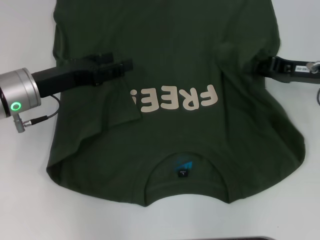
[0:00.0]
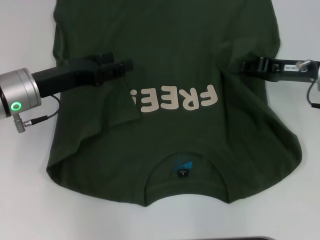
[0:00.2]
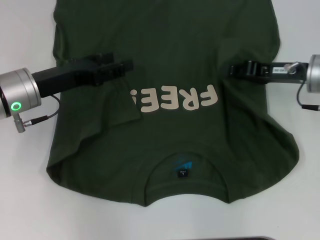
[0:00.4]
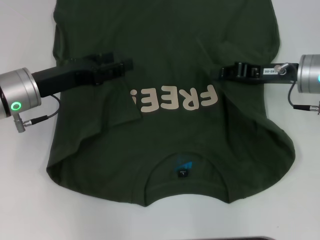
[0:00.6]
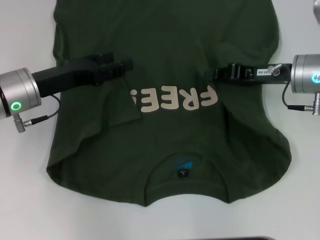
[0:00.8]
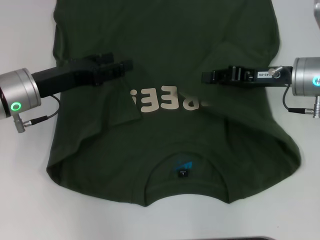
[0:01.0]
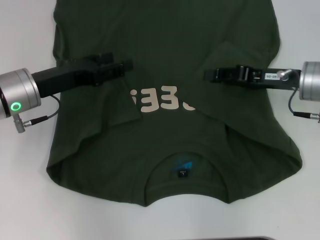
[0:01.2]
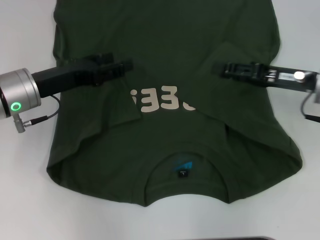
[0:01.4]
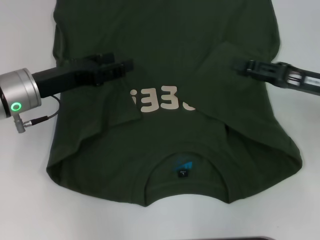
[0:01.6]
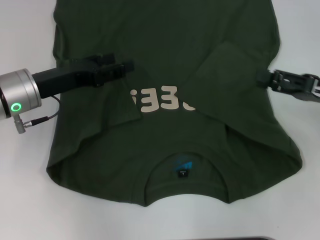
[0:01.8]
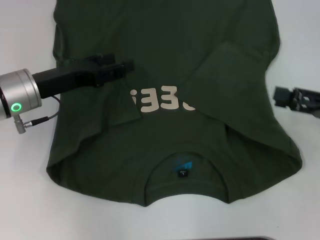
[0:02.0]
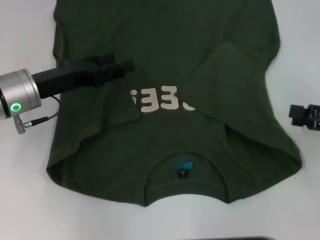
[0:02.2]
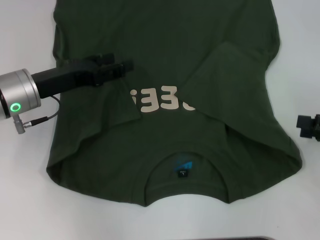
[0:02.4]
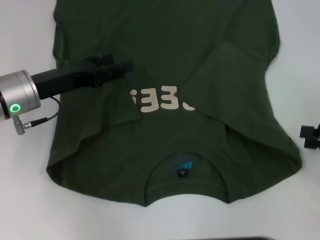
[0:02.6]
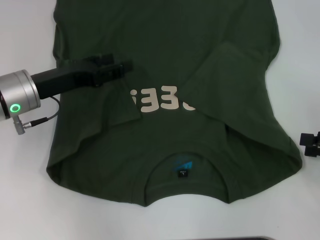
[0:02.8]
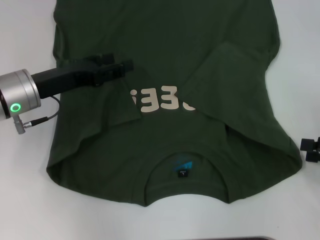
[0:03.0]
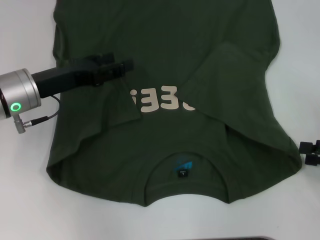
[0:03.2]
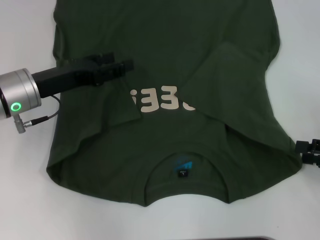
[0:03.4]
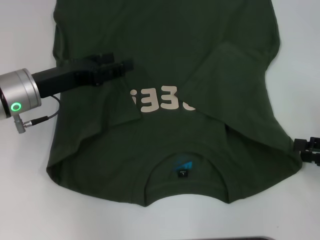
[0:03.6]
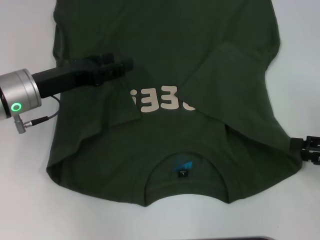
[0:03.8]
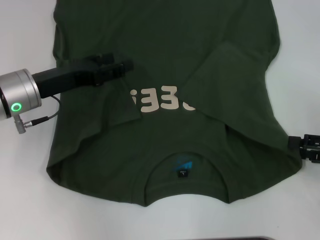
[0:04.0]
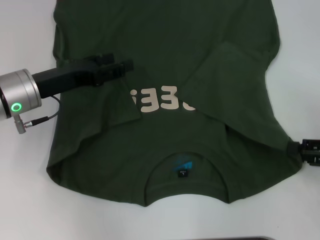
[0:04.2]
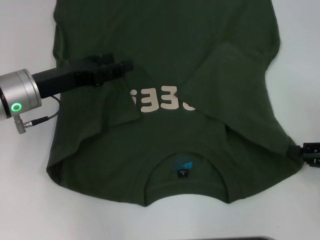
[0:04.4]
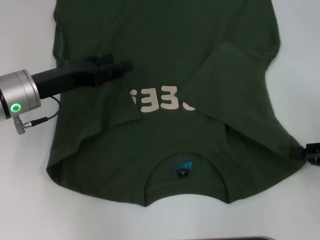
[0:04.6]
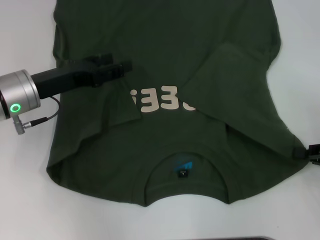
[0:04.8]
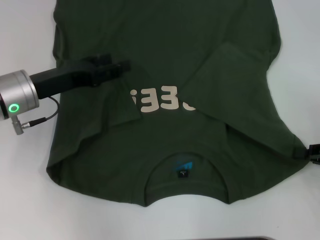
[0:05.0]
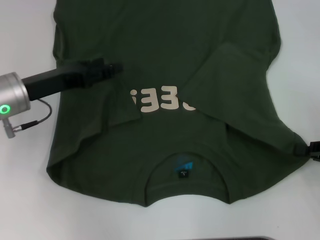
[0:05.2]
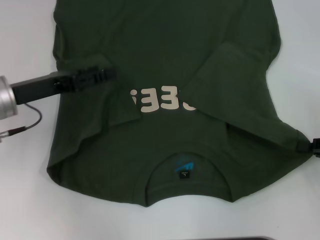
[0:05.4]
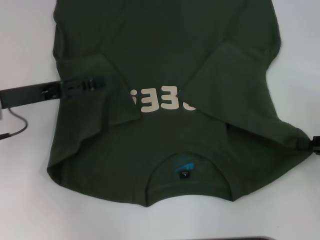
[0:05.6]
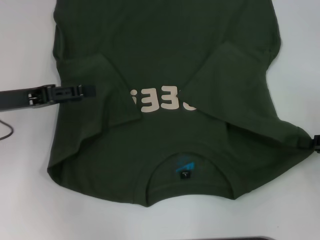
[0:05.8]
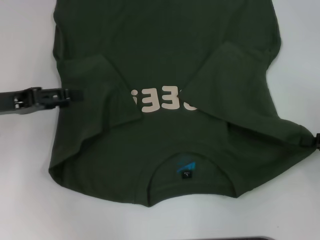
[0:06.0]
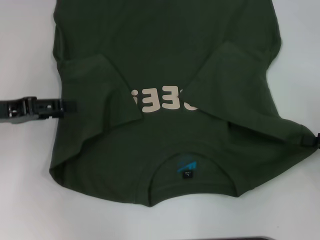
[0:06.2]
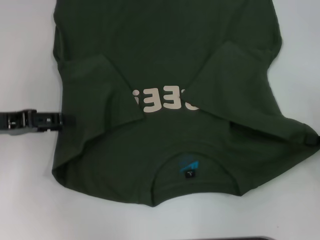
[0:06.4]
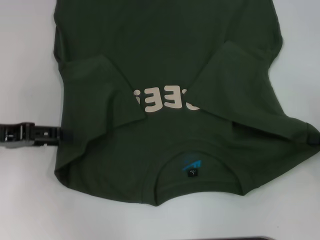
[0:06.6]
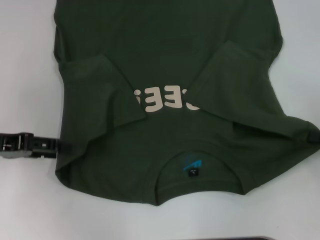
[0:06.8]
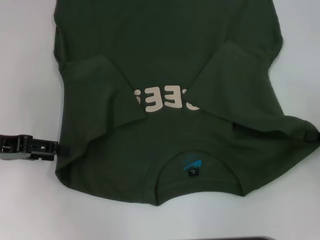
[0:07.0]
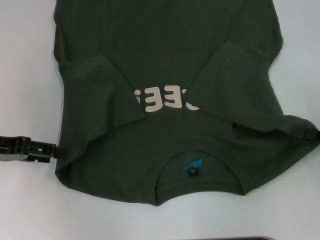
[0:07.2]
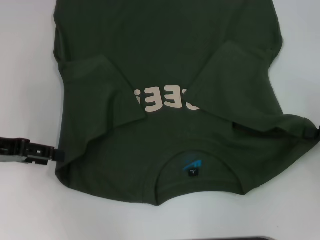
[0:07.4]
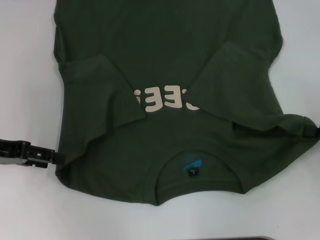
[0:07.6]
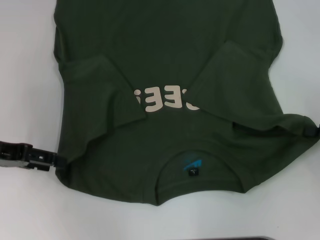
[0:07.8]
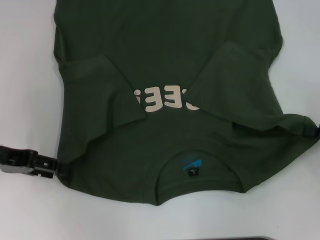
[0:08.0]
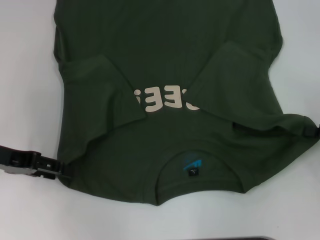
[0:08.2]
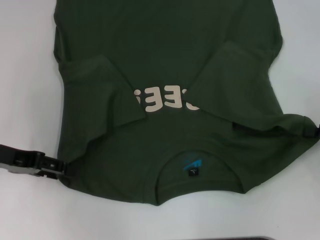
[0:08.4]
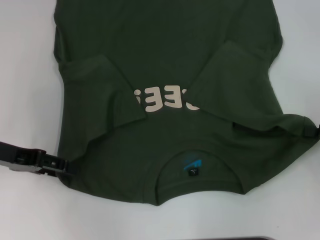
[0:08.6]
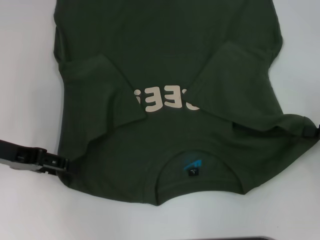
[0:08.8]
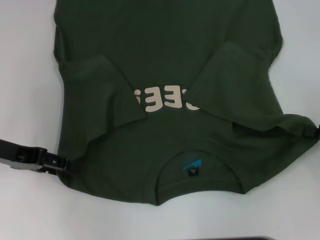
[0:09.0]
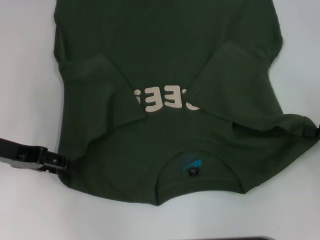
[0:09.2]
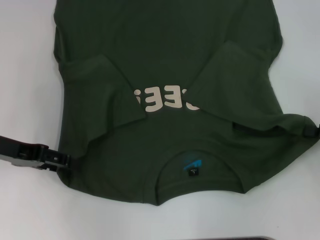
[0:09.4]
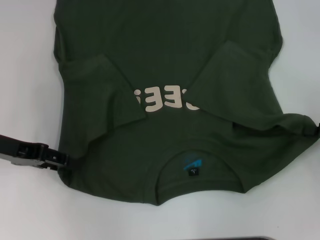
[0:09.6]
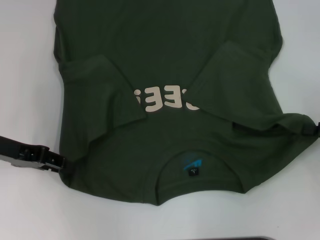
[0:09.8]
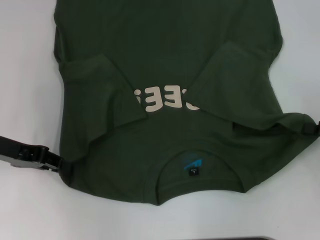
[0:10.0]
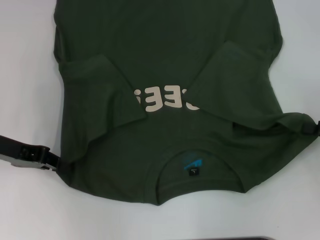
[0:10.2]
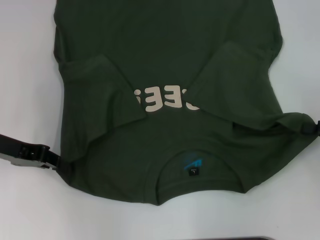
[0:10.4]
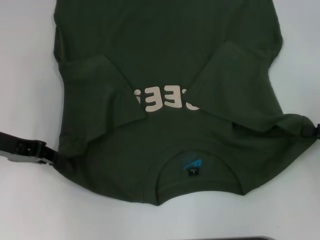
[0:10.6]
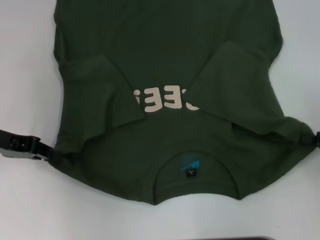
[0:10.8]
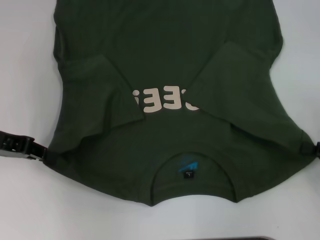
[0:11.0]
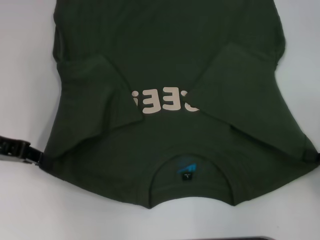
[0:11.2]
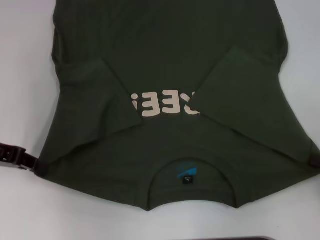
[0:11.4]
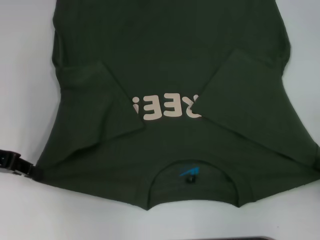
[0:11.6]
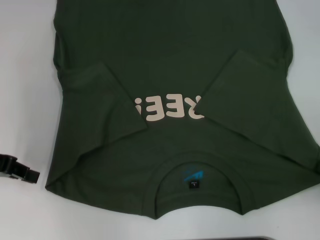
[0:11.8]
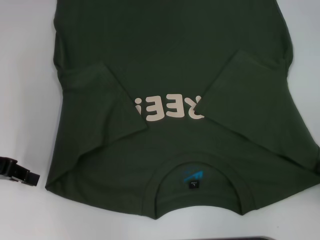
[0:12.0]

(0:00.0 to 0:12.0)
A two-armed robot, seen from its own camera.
Step, 0:01.2 - 0:05.0: Grab the bottom right corner with your right hand.
0:00.0 - 0:01.6: The right gripper opens up.
0:01.6 - 0:03.0: The right gripper heads to the right and backward, covering approximately 15 cm.
0:04.4 - 0:06.0: The left gripper shifts about 10 cm to the left. The right gripper closes up.
0:07.6 - 0:09.0: The grippers move only a little.
0:09.0 - 0:10.4: The left gripper closes.
0:10.4 - 0:12.0: The right gripper goes roughly 10 cm backward.

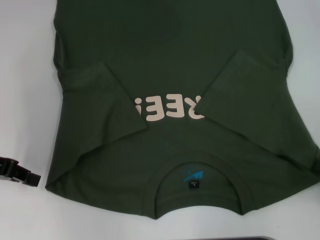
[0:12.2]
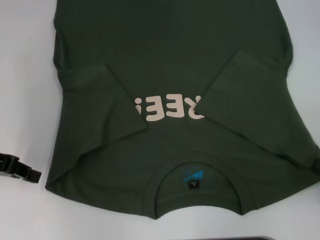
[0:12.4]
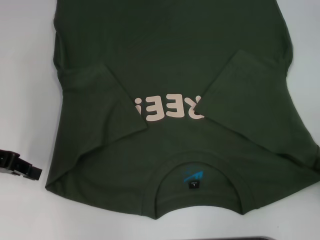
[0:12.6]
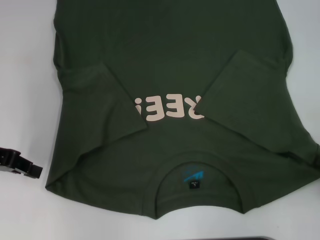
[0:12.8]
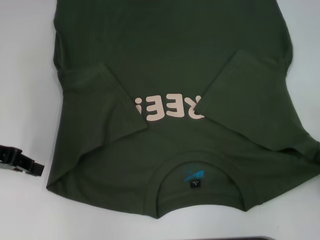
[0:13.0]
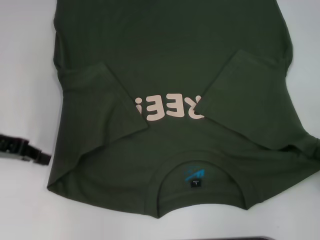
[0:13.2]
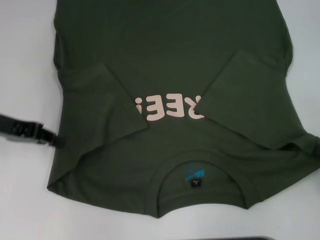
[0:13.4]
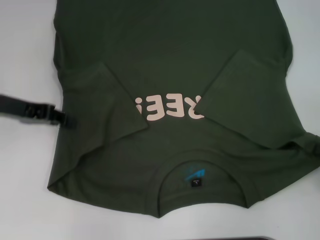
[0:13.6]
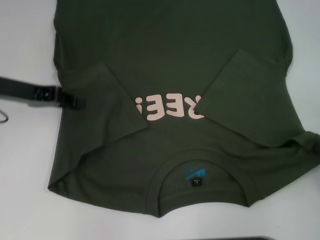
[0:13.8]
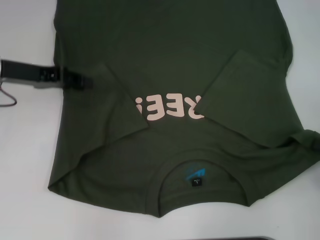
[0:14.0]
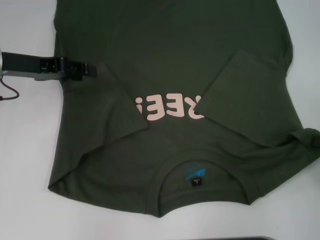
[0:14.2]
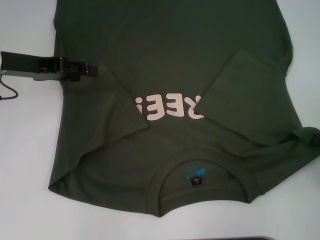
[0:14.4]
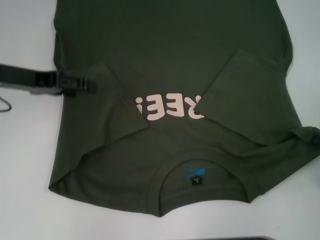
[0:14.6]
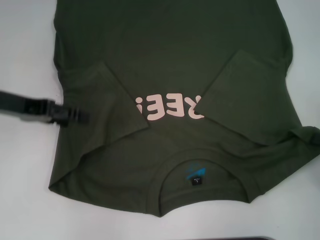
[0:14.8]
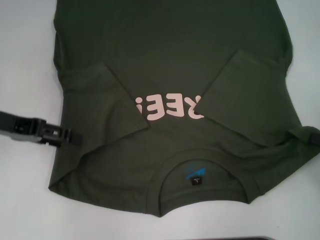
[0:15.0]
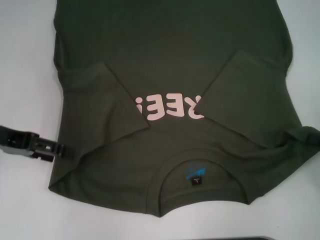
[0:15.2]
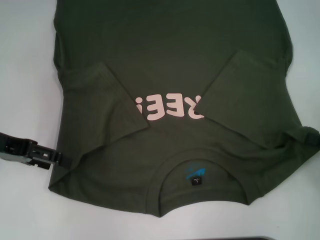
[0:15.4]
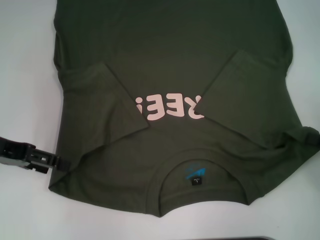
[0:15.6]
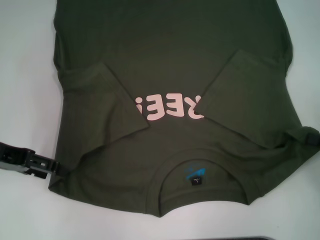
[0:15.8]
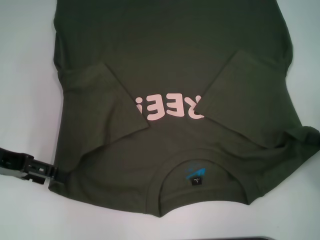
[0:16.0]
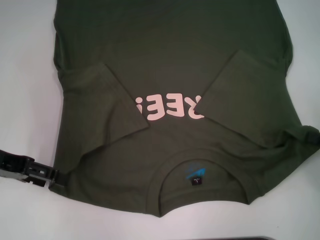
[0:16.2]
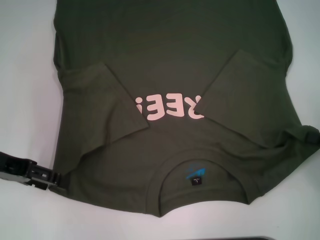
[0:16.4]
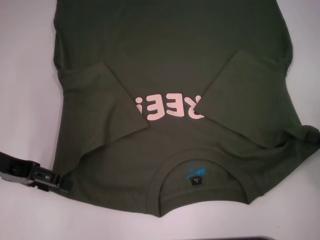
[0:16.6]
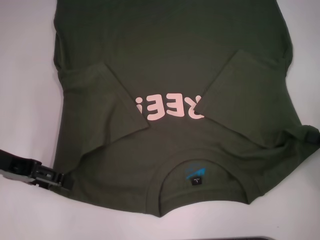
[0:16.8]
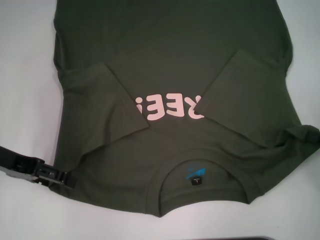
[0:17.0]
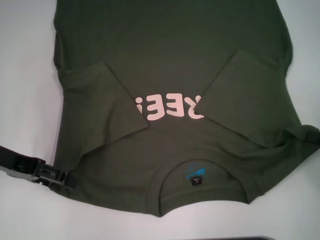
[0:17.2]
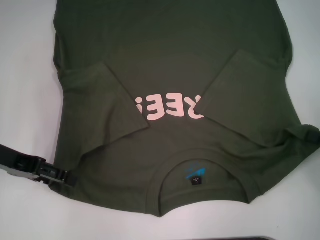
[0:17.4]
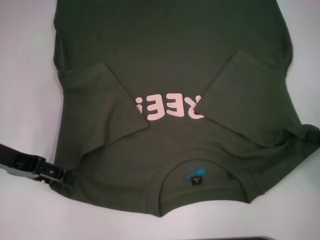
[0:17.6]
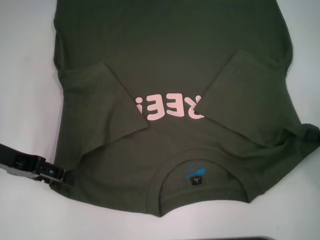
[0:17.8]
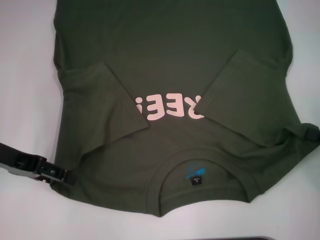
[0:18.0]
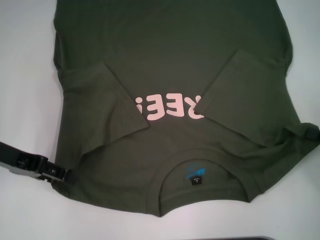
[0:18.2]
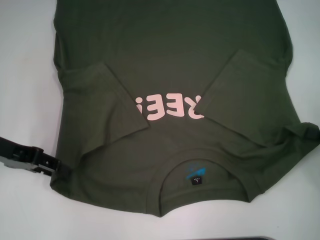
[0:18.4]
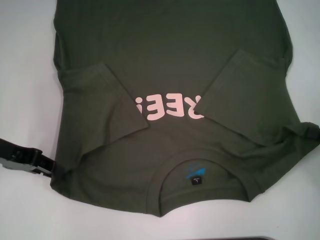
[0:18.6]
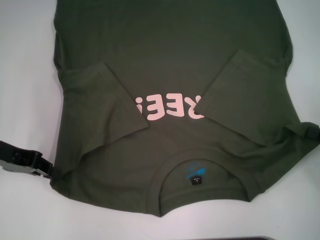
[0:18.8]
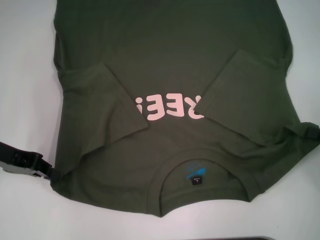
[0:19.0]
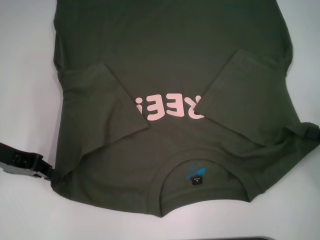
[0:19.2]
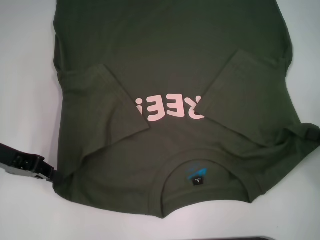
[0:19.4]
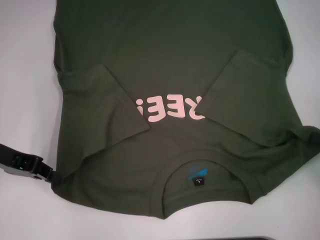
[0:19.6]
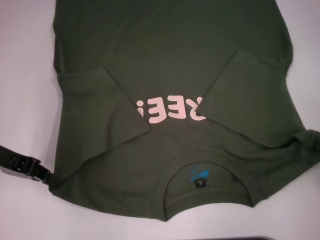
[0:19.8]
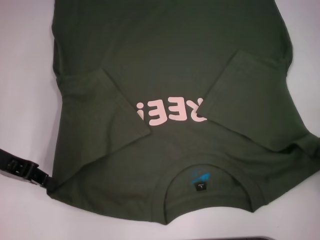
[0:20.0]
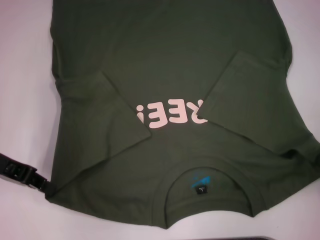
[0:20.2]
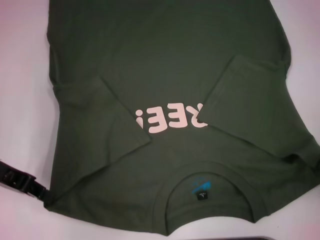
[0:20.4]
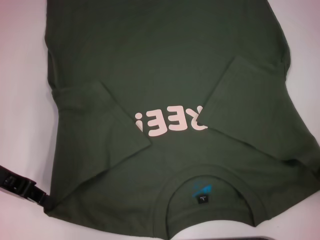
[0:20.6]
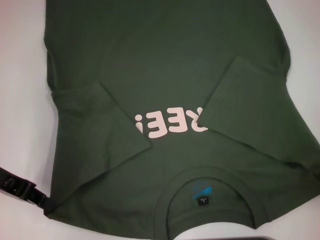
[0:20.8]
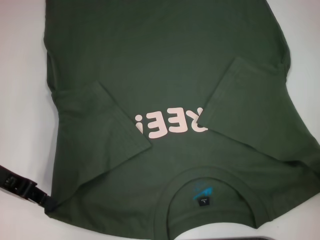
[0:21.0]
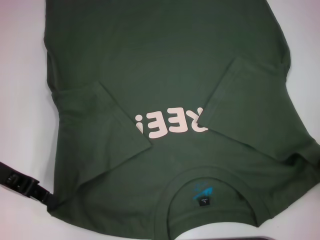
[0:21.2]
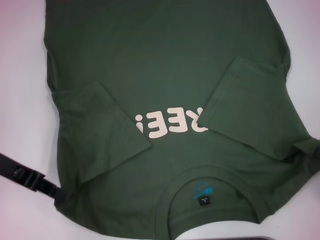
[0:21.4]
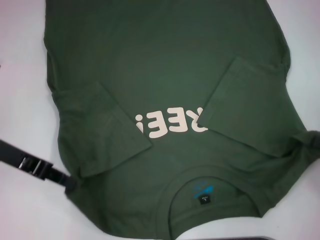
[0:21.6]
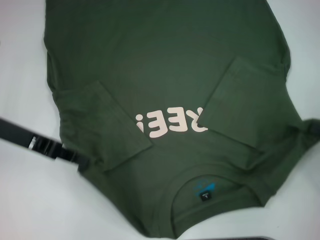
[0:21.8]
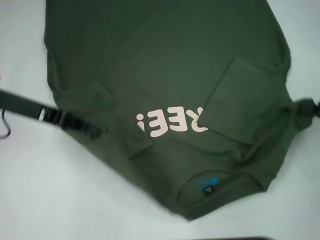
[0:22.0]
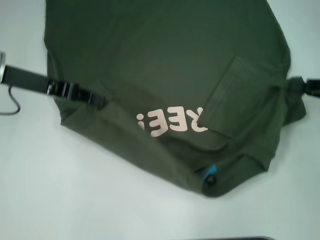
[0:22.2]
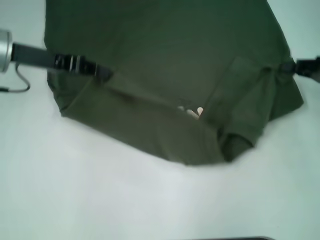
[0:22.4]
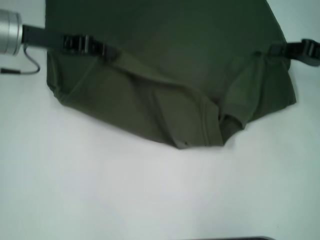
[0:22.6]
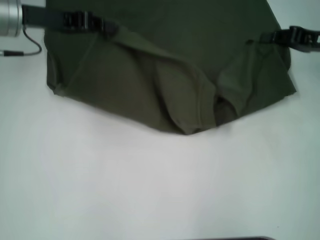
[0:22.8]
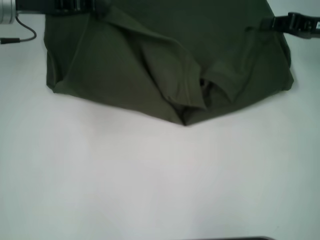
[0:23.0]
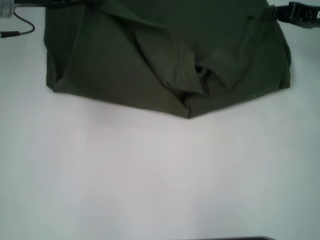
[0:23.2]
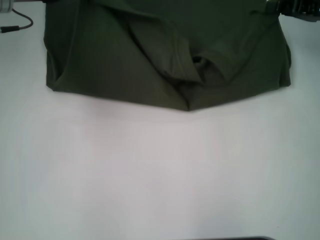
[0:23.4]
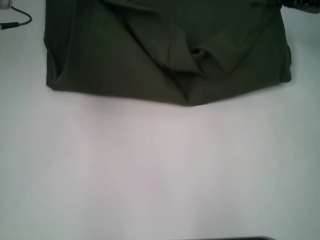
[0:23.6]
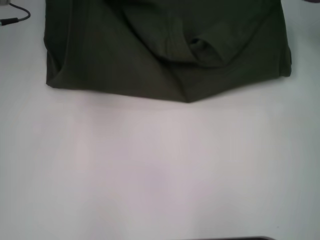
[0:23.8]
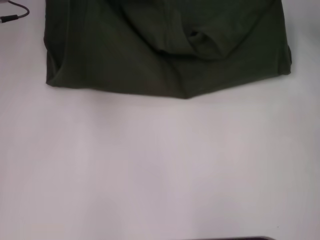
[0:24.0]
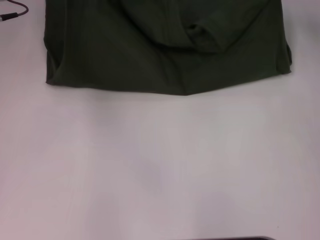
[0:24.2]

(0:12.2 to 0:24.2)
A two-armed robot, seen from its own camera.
Step, 0:12.2 - 0:19.0: Grab the bottom left corner with your left hand.
0:12.2 - 0:13.8: The left gripper is displaced forward and to the right by about 10 cm.
0:13.8 - 0:15.2: The left gripper shifts by roughly 5 cm, and opens.
0:15.2 - 0:16.6: The grippers make only small movements.
0:16.6 - 0:18.2: Both grippers stay put.
0:18.2 - 0:19.8: The left gripper closes its fingers.
0:19.8 - 0:21.2: The grippers move only a little.
0:21.2 - 0:22.6: The right gripper moves forward, about 20 cm. Meanwhile the left gripper moves forward, to the right and upward, about 15 cm.
0:22.6 - 0:24.2: The left gripper is displaced forward by some 5 cm. The right gripper heads forward and upward, covering some 10 cm.
